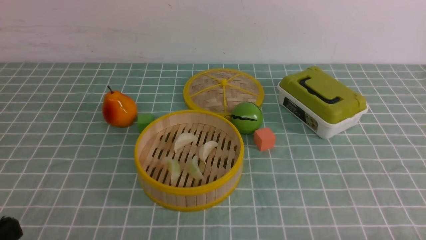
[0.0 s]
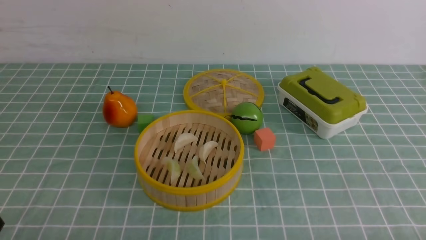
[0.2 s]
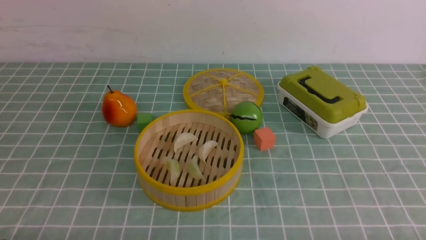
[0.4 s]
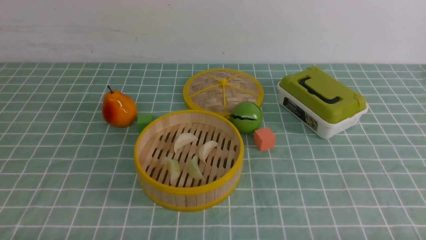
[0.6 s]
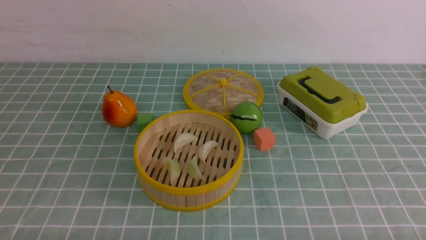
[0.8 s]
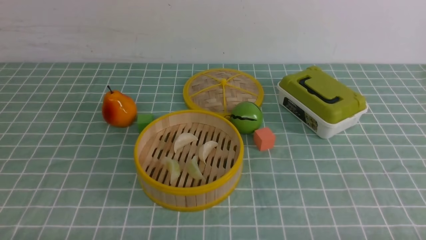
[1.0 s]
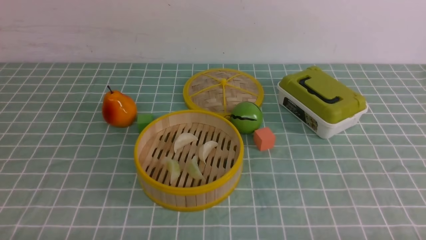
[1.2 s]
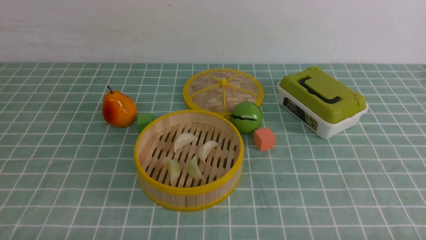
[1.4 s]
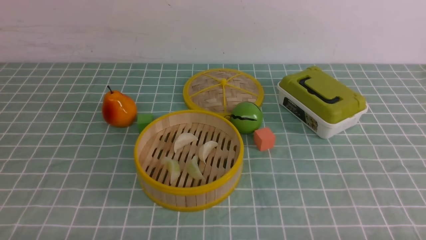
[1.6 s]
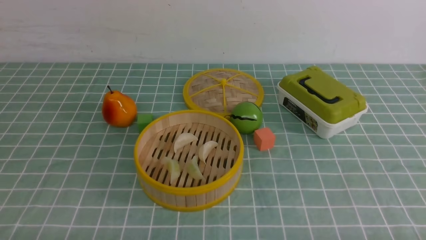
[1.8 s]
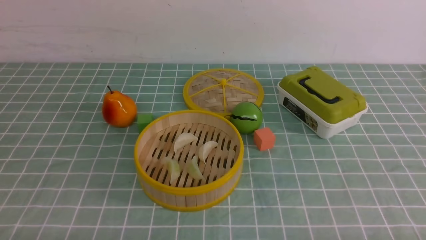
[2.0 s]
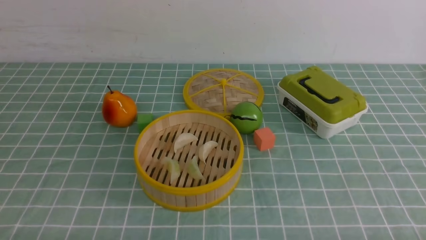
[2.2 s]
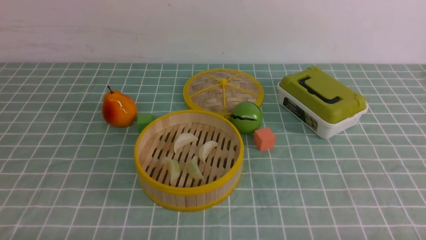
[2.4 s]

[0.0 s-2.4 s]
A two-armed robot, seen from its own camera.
Task of the whole recording: put the dumplings into the steamer on the table with the blue tablecloth.
1.2 to 2.4 s: Neither gripper changes place.

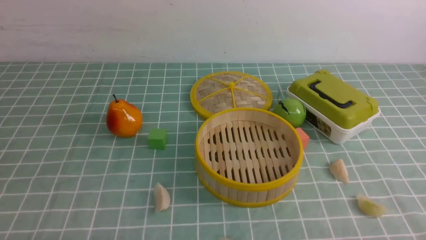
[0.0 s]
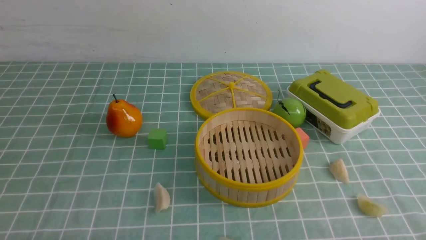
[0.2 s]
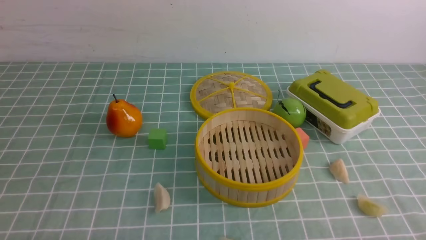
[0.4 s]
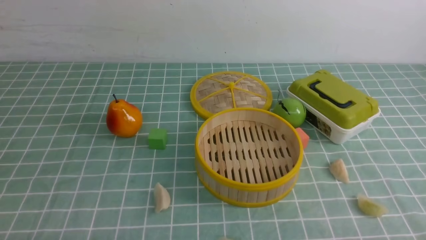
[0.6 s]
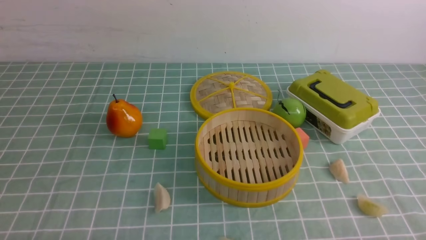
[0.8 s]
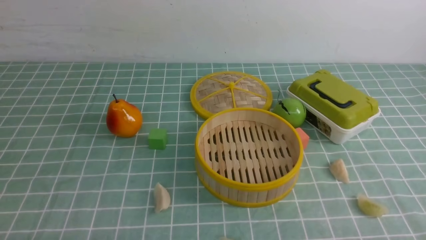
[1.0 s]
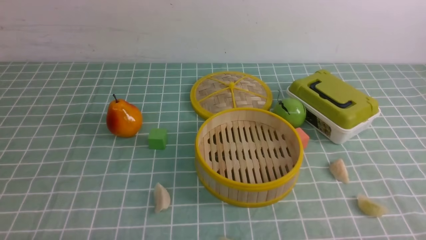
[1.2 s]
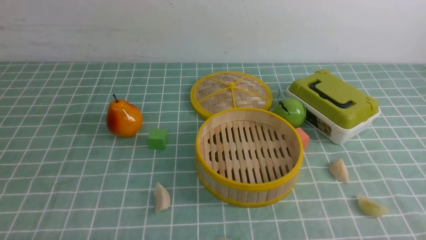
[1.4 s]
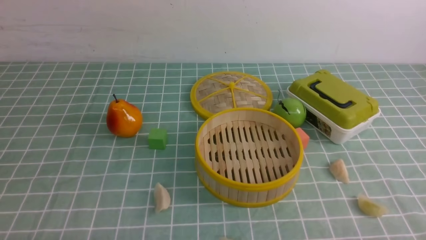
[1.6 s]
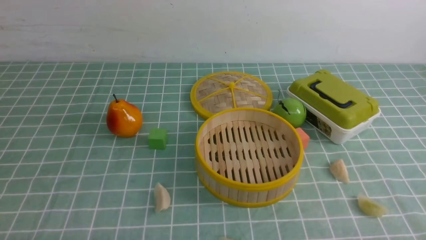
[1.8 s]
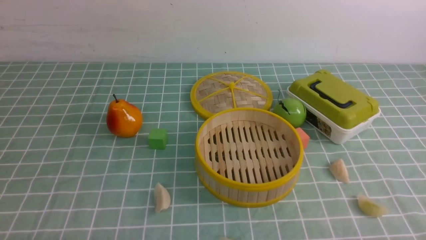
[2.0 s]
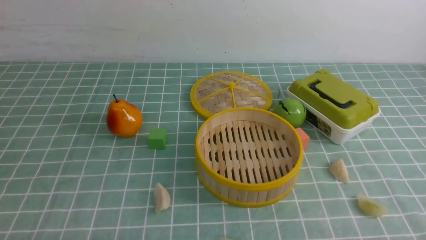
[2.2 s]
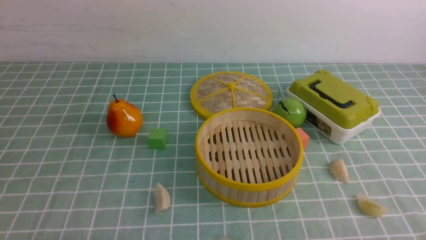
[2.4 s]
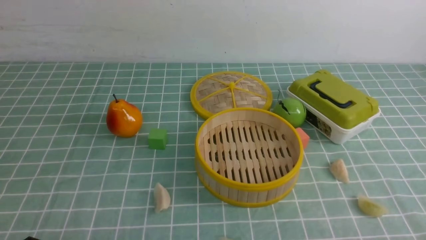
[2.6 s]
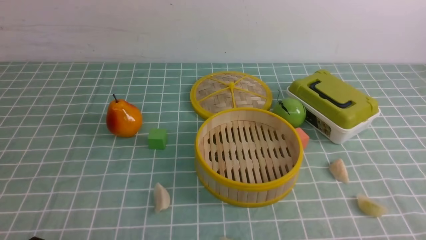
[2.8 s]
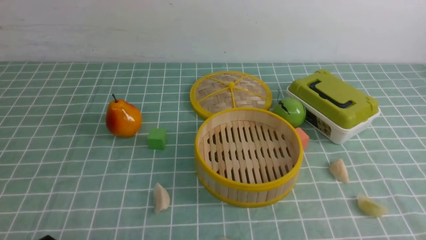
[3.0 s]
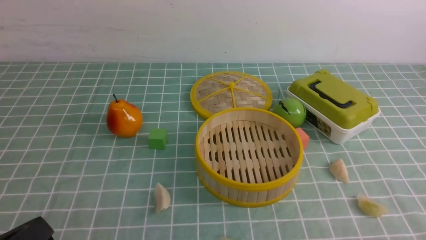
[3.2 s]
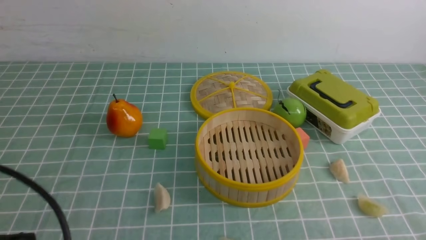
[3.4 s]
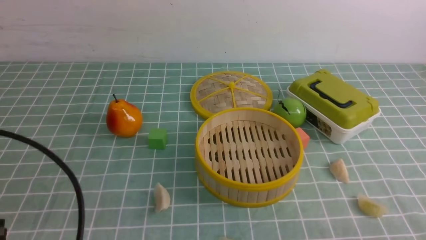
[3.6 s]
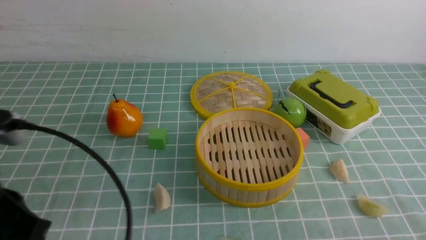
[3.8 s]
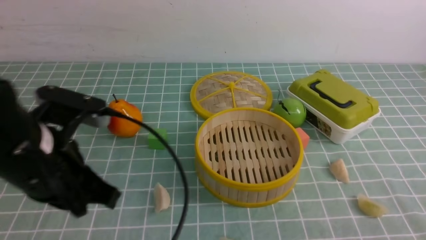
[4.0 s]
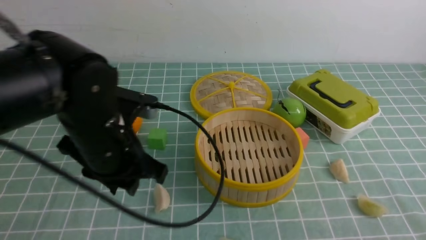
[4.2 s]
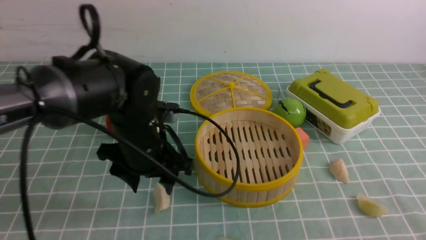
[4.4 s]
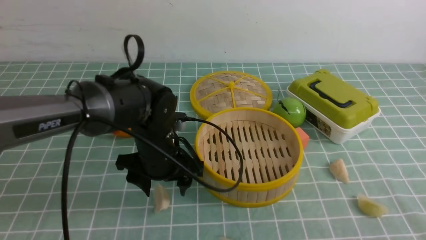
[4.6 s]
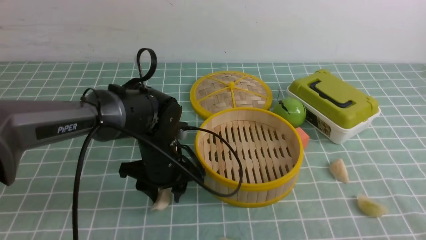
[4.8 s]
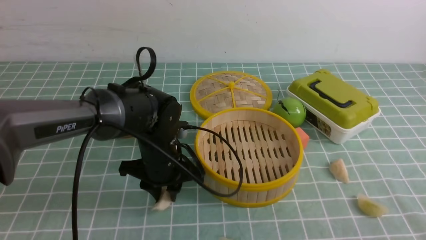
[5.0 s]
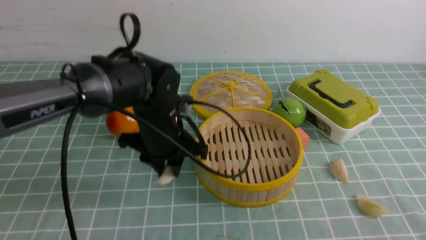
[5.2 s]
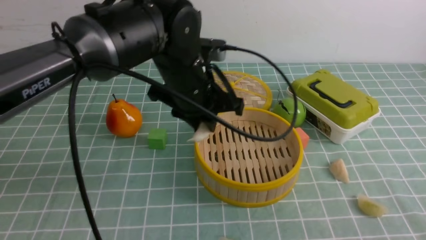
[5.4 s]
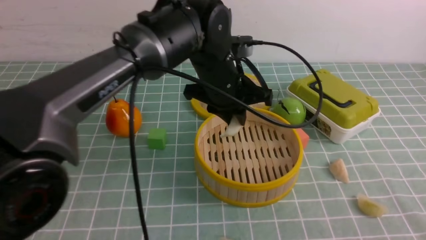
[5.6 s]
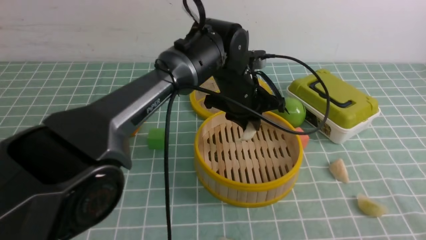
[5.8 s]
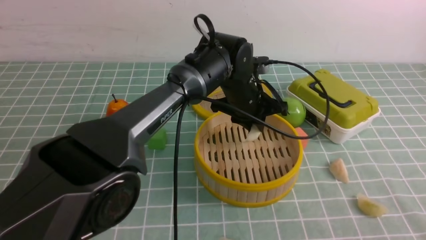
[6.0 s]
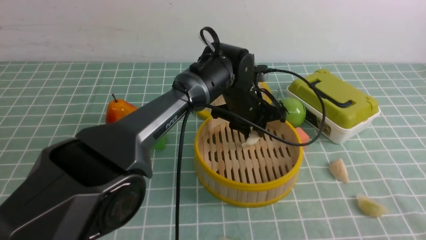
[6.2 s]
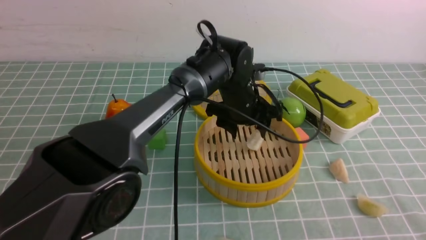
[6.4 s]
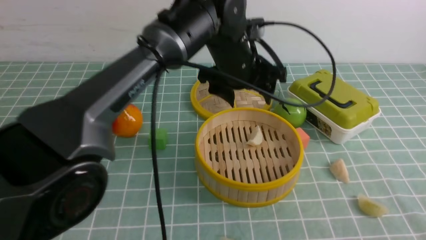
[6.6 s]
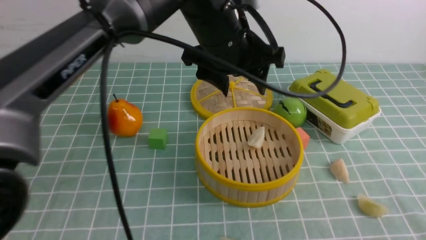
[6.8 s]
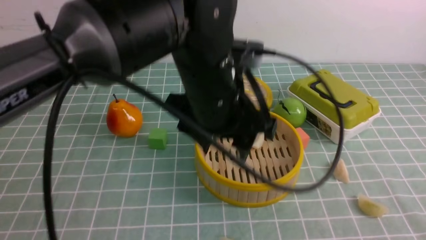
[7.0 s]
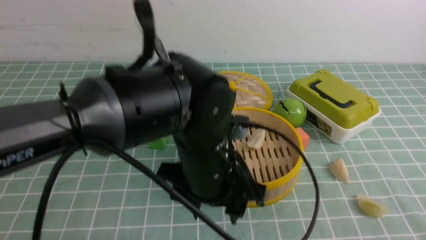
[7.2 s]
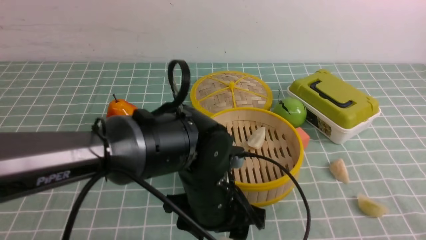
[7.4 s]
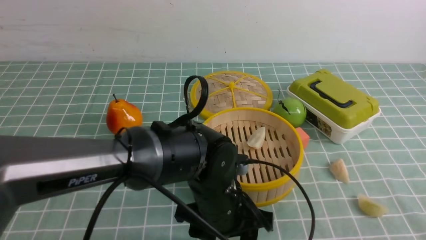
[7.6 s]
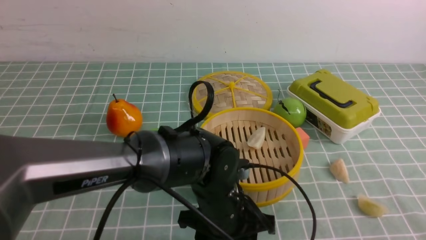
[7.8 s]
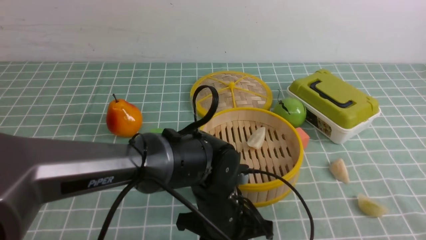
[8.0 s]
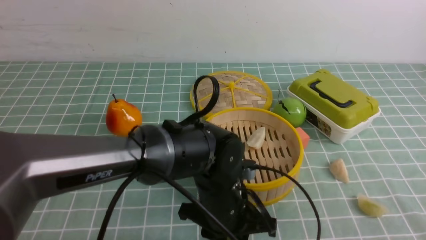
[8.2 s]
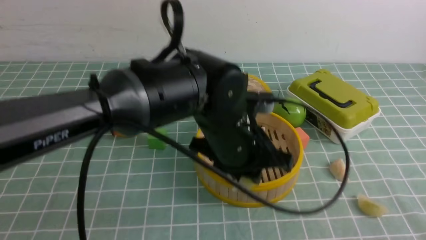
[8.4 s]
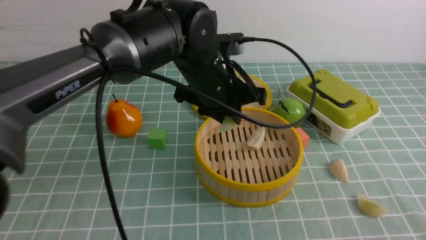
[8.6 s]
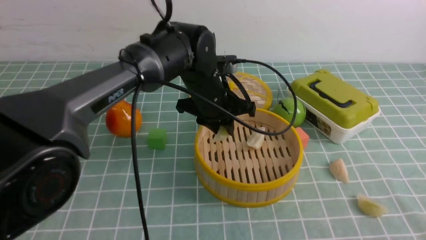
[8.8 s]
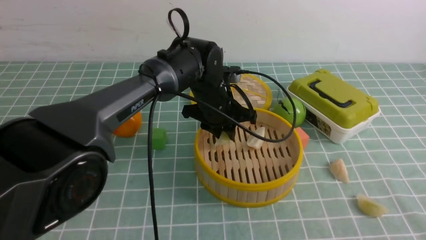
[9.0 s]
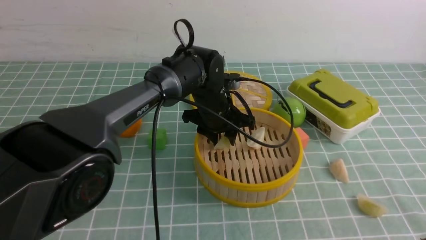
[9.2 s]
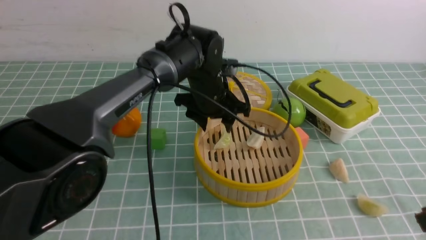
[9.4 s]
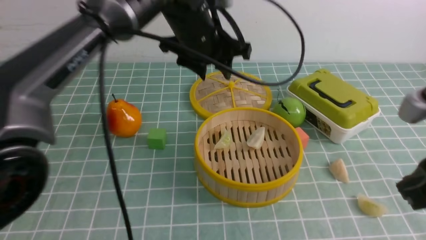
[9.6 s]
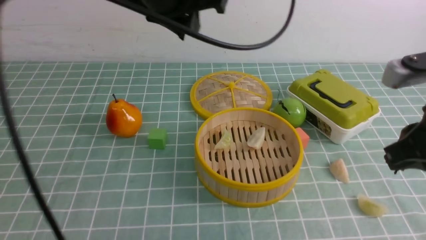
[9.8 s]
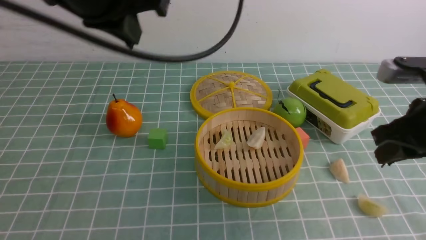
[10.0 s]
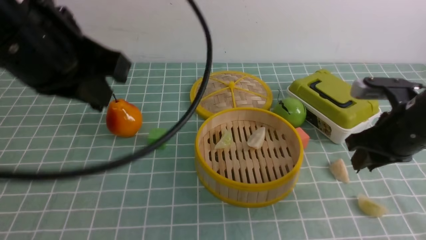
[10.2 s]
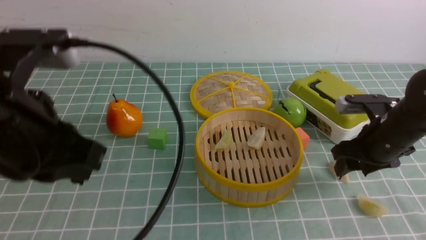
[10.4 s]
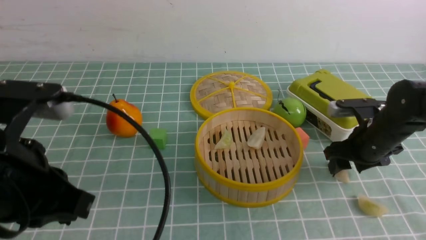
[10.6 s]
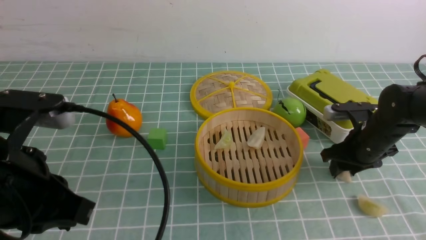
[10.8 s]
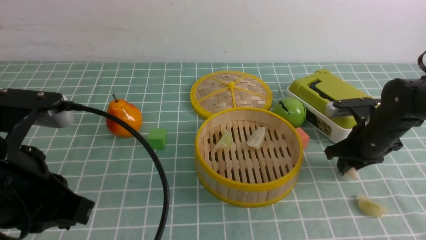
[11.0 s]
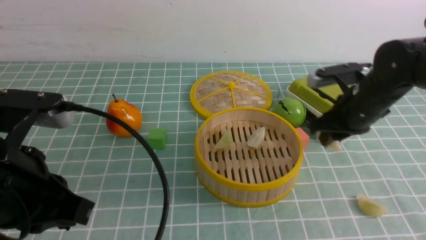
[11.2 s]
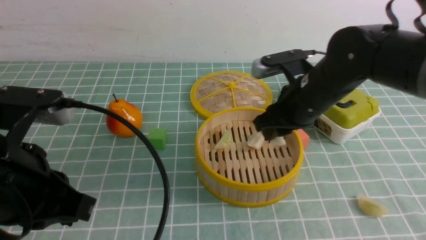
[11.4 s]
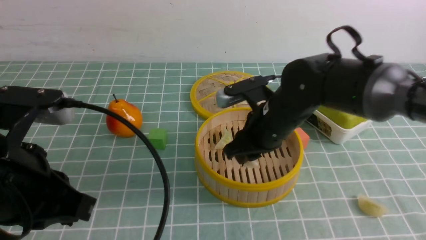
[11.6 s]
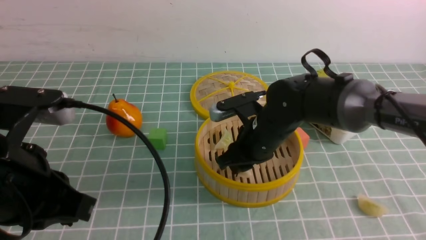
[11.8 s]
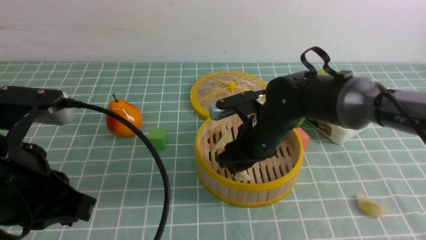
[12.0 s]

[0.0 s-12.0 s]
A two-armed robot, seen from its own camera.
Task of the whole recording: put the dumplings into the steamer on the table with the blue tablecloth.
Step, 0.0 to 4.8 s: use the left arm to grab a dumpling.
Step, 5.0 to 6.4 s: use the left arm to put the dumpling into the steamer.
Step, 6.6 to 8.0 s: use the left arm to grab a dumpling.
Step, 8.2 to 9.4 s: use the left arm to put the dumpling into the steamer.
Step, 9.6 to 10.8 s: use the right arm to grab a dumpling.
3.0 to 4.4 s: The left gripper travels forward and to the right by roughly 30 cm, and opens its fingers. Meanwhile the right gripper moves upward, roughly 10 cm, and closes its fingers.
4.4 to 6.0 s: The left gripper travels to the right and forward by about 20 cm, and closes.
6.0 to 7.6 s: The left gripper goes about 20 cm backward, and opens up.
7.6 to 9.0 s: The left gripper heads forward, covering some 20 cm, and closes.
9.0 to 10.4 s: The left gripper travels backward, to the left and upward by some 35 cm, and closes. Meanwhile the right gripper shifts approximately 25 cm forward, and opens.
10.4 to 12.0 s: The right gripper goes some 20 cm to the left.

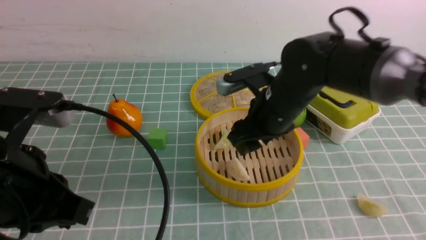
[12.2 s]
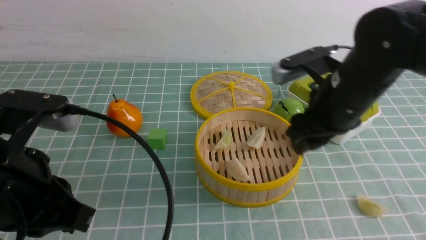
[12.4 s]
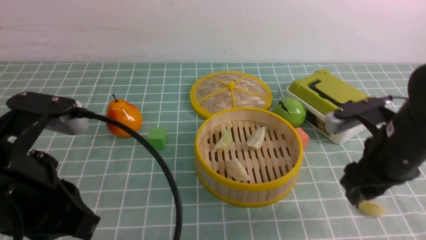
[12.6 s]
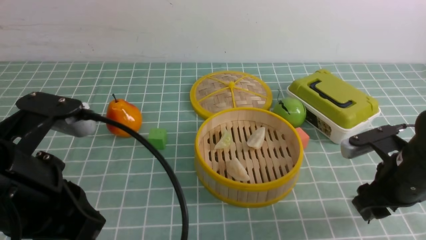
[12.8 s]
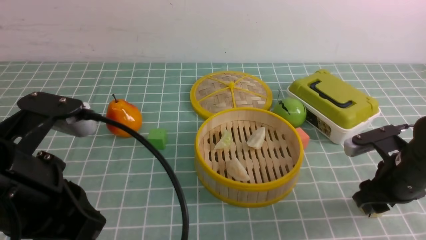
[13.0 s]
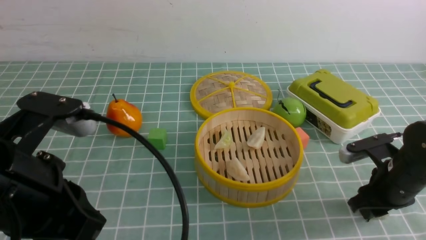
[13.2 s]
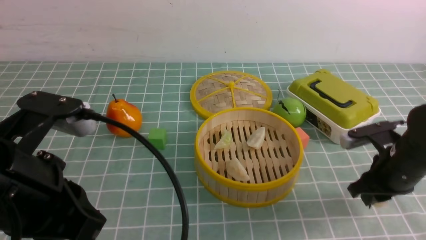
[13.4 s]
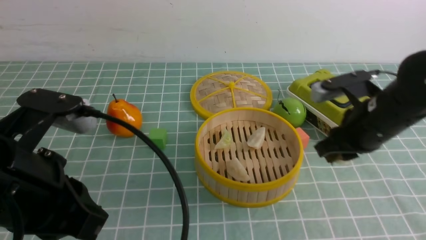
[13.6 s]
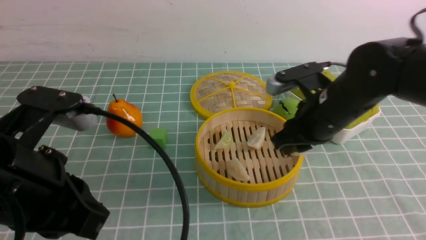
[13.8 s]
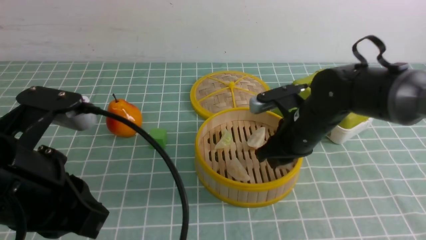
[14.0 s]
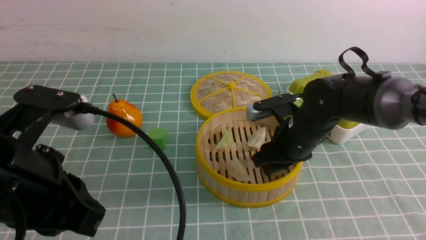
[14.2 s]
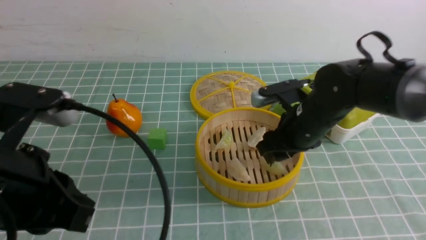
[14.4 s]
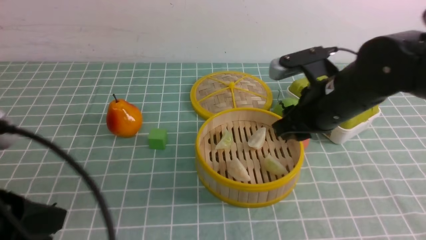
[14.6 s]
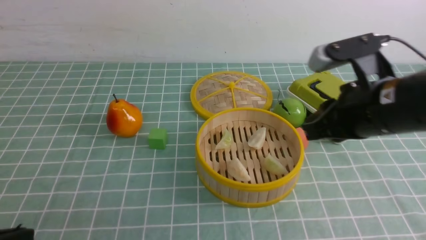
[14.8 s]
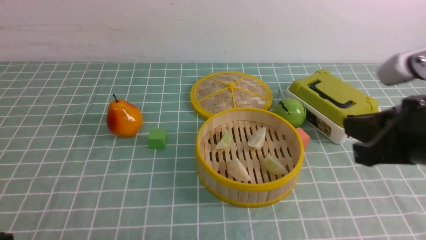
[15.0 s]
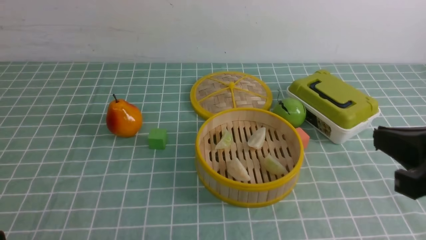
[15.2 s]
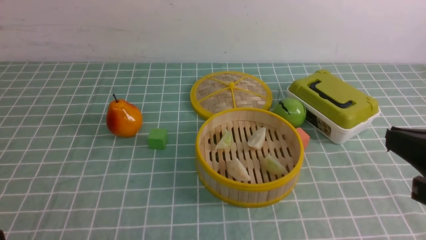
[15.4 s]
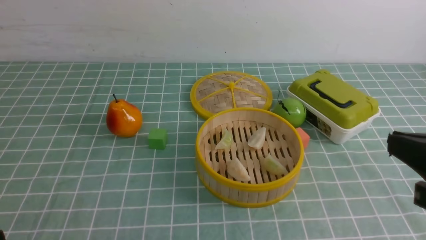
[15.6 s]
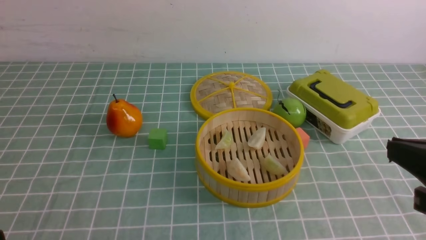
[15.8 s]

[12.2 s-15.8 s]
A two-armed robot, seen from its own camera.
Task of the whole recording: put the dumplings into the steamer on the table with the blue tablecloth.
Step, 12.4 to 13.2 s: use the right arm to grab a dumpling.
Step, 13.4 to 14.4 s: use the right arm to put the dumpling into the steamer.
12.2 to 14.0 s: The right gripper reaches roughly 15 cm to the right, then returns, and closes up.
14.0 to 15.8 s: The right gripper heads backward, upward and to the right, covering approximately 25 cm, and closes up. Meanwhile the left gripper travels backward and to the left by about 15 cm.
